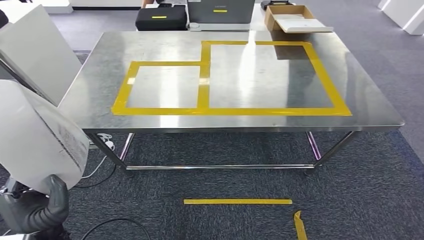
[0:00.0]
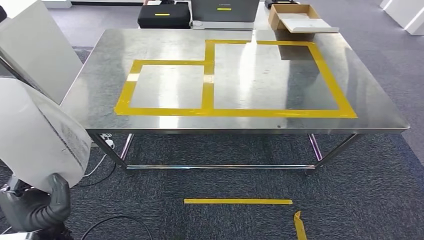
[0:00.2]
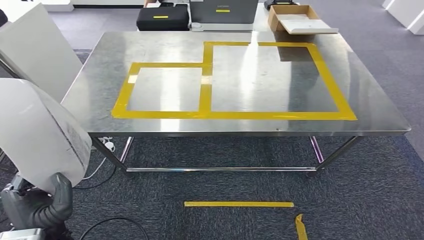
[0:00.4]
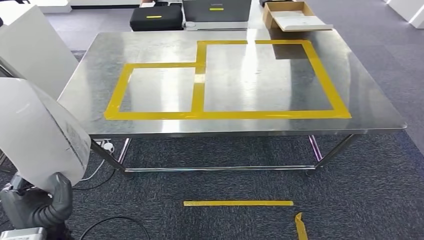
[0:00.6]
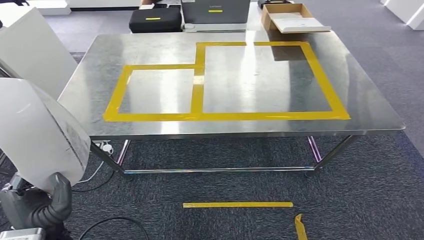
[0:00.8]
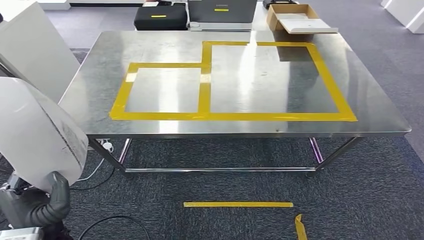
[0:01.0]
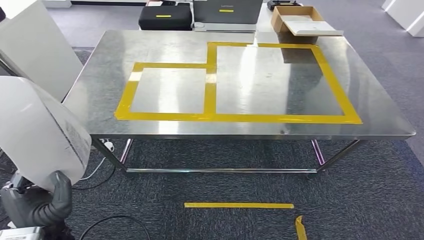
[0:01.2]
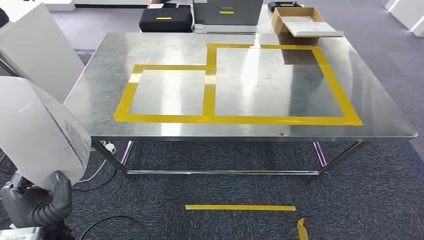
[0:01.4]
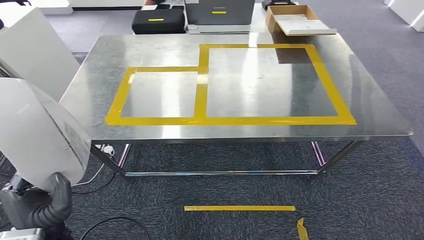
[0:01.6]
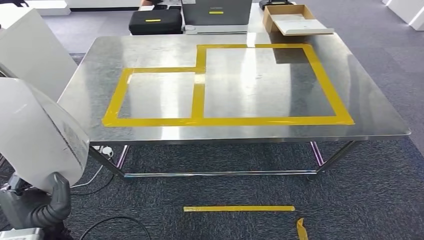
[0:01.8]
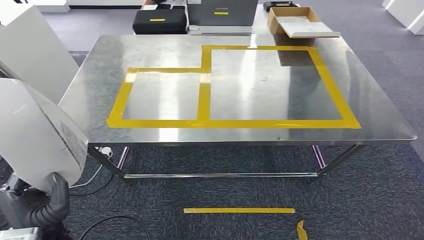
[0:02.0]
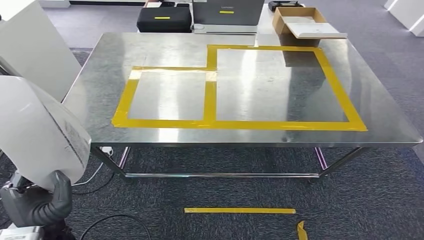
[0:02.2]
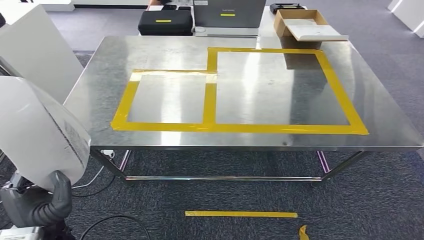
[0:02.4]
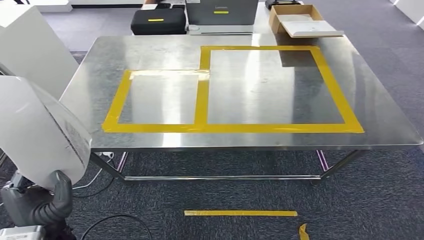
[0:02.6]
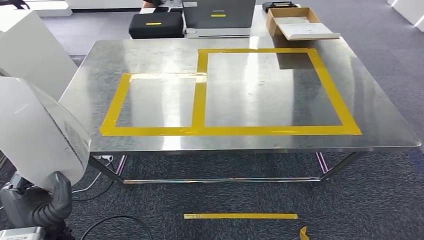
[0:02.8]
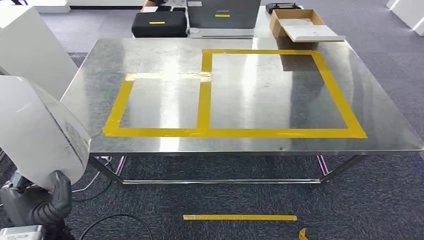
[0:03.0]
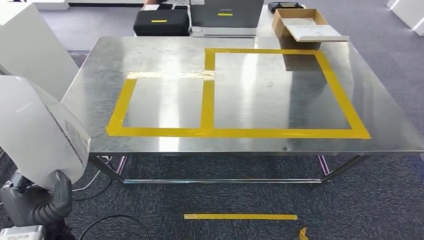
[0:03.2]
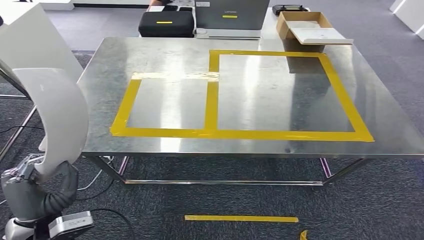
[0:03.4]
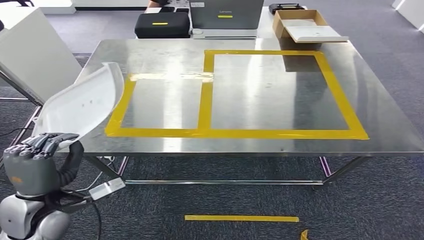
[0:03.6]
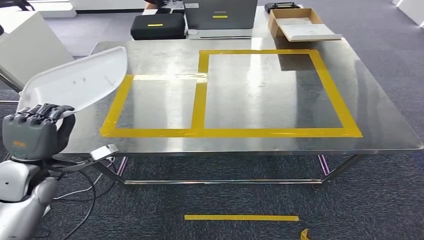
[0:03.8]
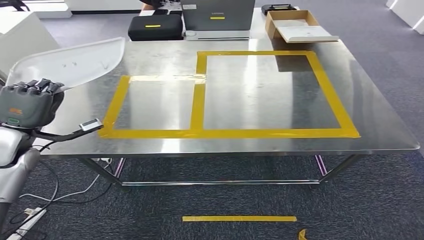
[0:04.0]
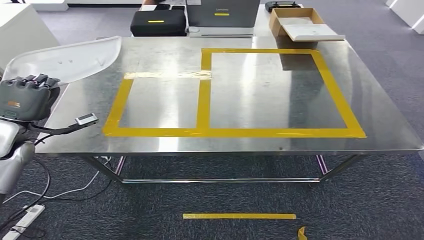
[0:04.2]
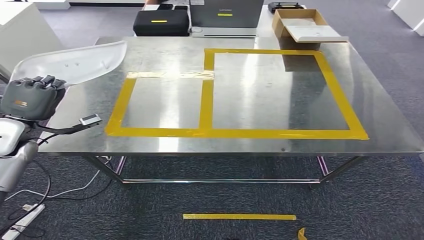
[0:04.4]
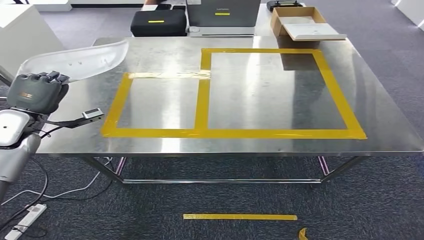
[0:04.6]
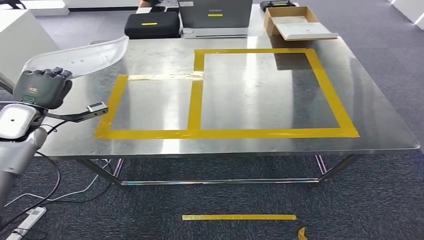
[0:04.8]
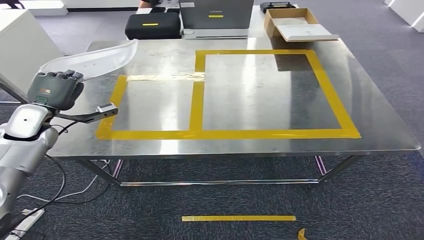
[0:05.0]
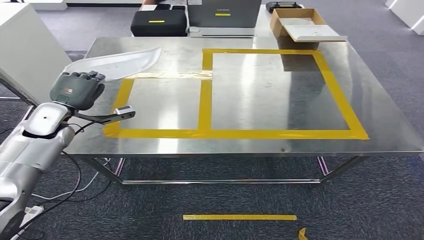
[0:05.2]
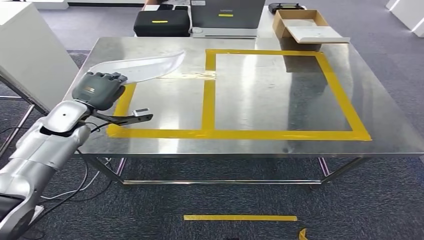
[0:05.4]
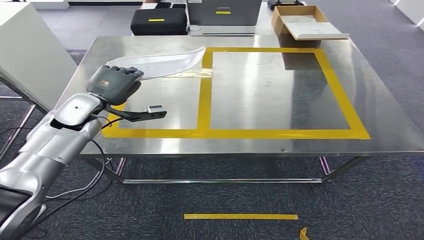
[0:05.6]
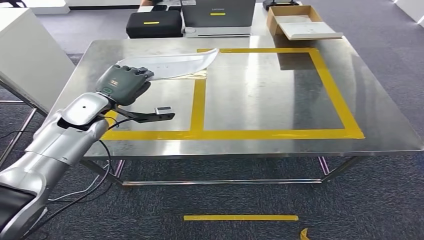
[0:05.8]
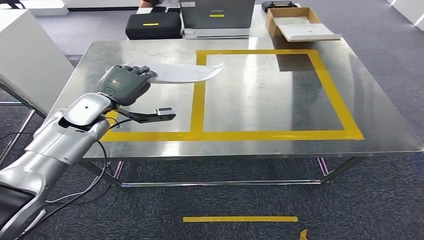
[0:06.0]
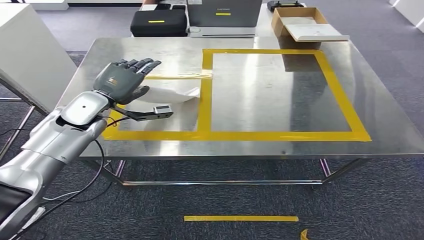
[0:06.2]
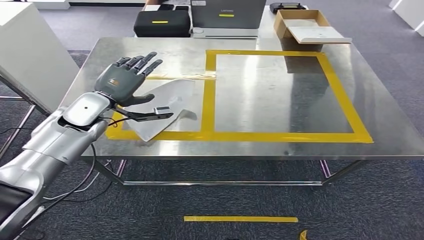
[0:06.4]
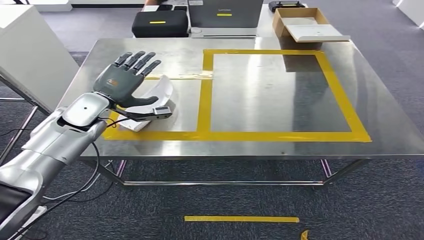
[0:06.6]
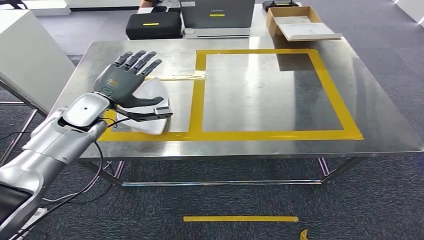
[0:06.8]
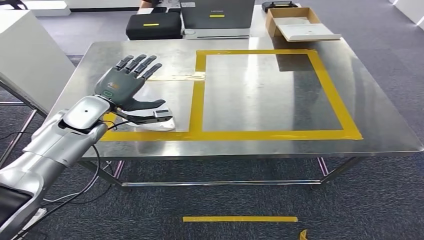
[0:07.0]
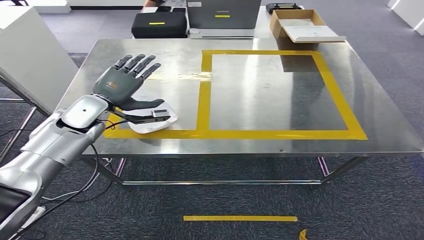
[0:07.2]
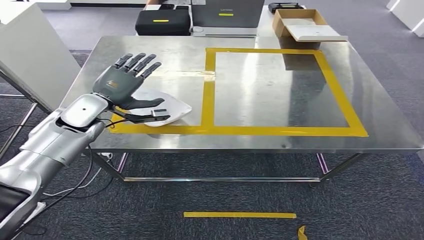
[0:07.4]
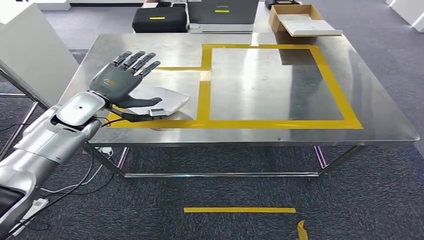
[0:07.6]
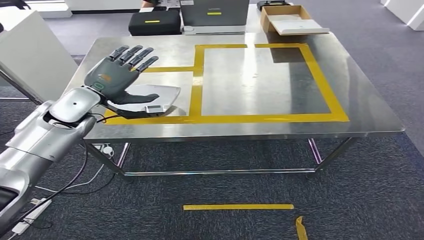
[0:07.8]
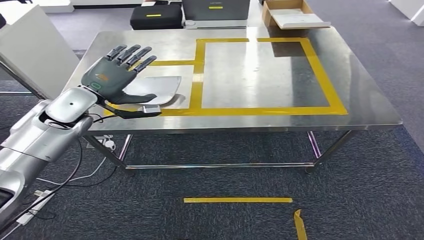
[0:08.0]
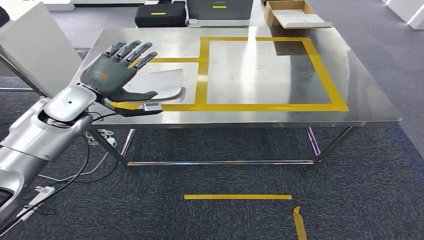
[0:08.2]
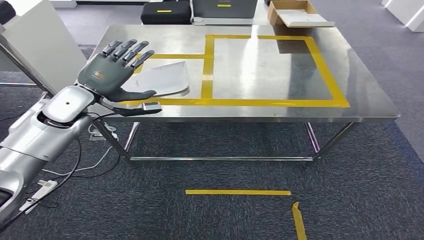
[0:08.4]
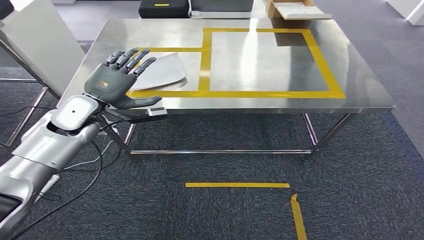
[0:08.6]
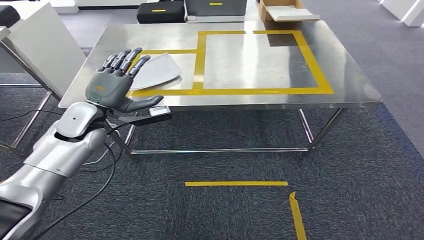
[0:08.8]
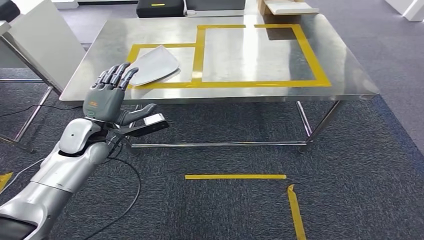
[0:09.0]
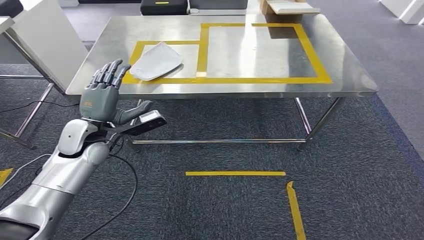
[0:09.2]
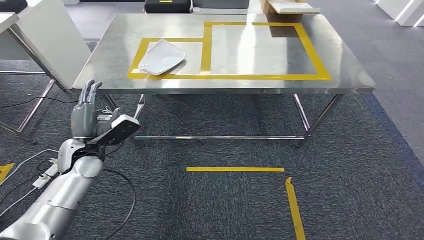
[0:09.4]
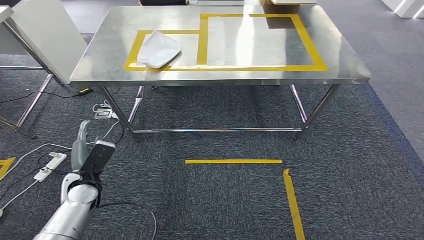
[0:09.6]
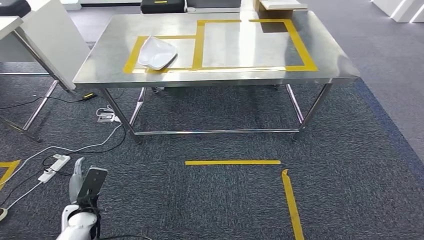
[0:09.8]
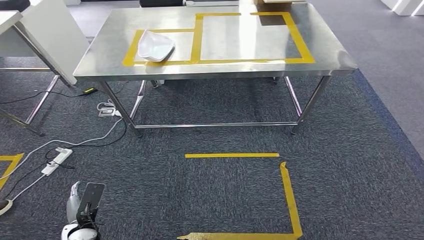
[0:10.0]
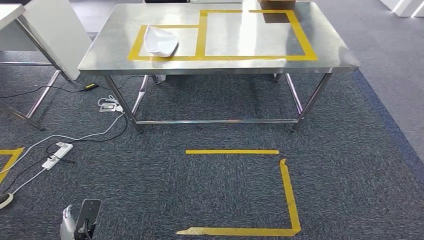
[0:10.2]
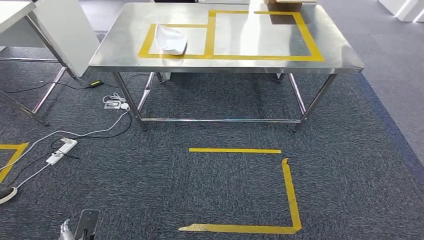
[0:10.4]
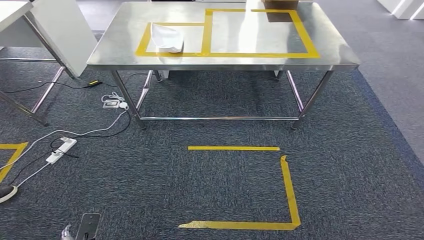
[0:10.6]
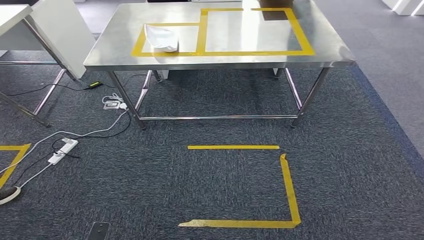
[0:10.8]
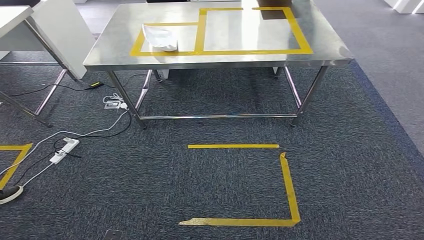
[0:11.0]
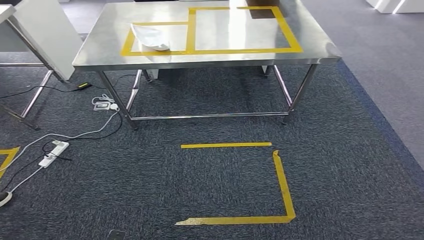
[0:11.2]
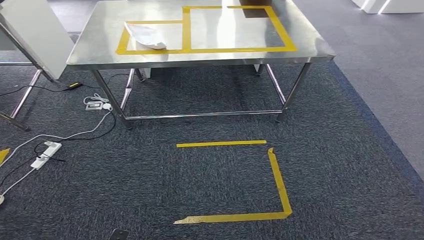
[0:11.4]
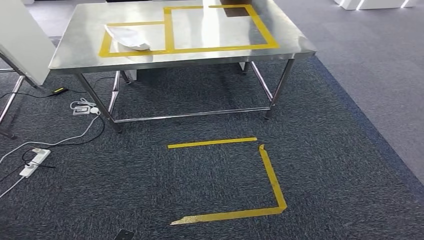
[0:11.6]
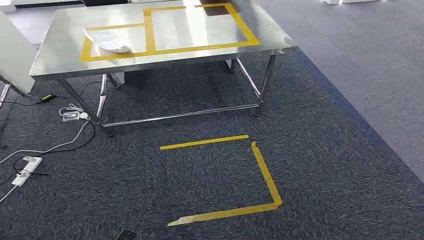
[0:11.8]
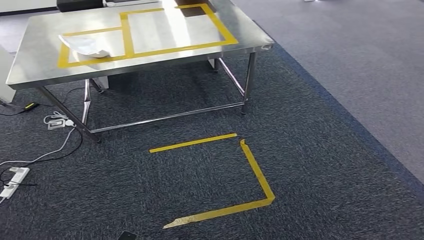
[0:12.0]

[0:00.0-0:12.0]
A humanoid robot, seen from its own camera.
Step, 0:00.0 to 0:08.2: Insert the small component into the corresponding slot on the workbench.
0:00.0 to 0:01.6: Neither hand changes place.
0:03.0 to 0:04.4: The left hand heads forward and to the left, covering about 30 cm.

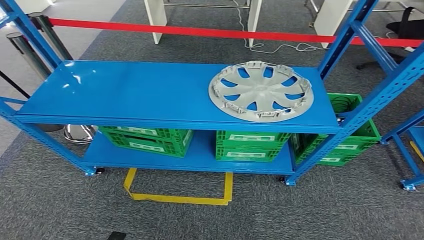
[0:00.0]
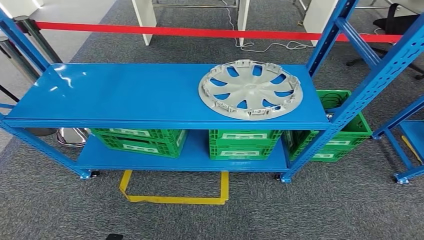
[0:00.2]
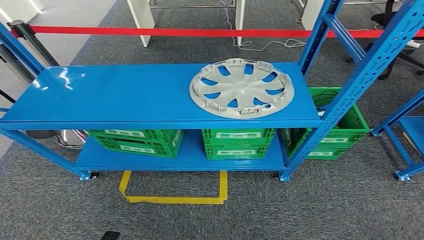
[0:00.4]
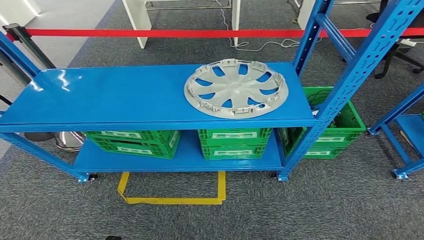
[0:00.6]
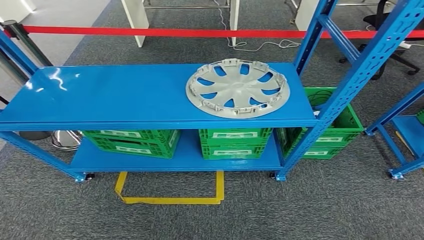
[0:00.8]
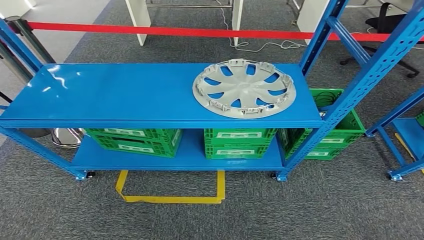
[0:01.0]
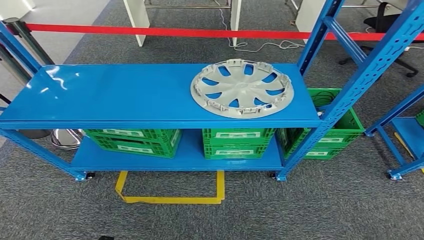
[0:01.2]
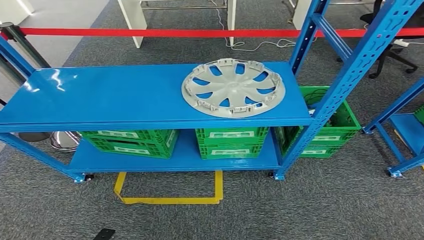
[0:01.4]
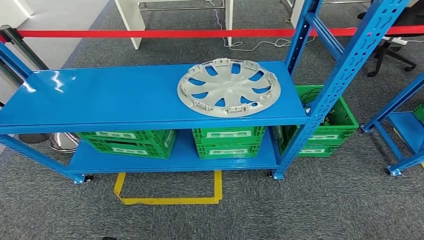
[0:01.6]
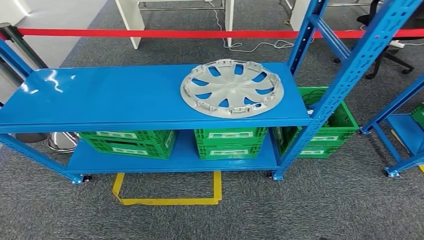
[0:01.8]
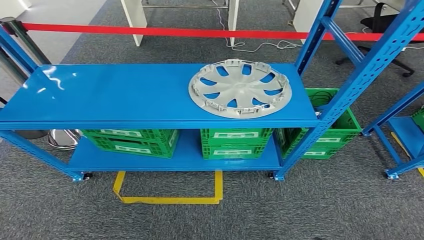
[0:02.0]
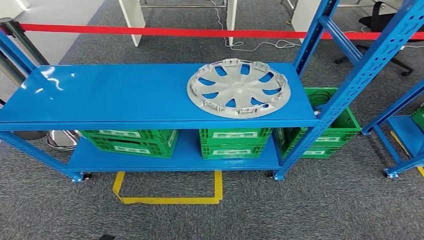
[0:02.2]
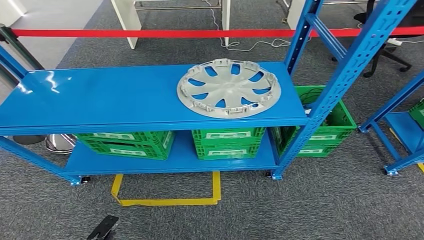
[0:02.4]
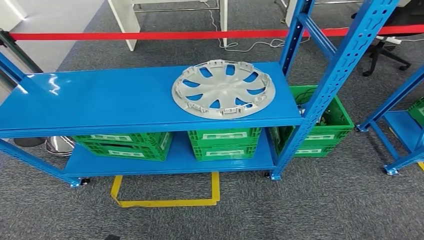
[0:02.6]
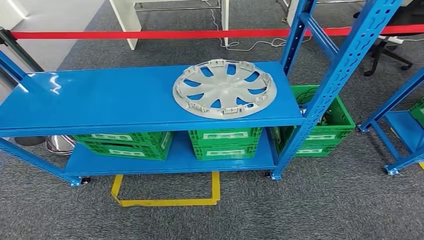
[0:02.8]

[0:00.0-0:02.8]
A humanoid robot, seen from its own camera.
Step, 0:00.0 to 0:02.6: Move to the initial position of the workbench.
